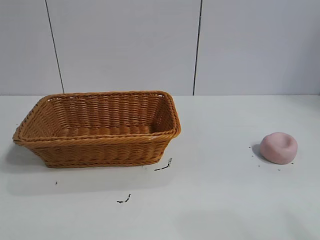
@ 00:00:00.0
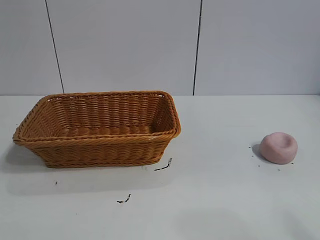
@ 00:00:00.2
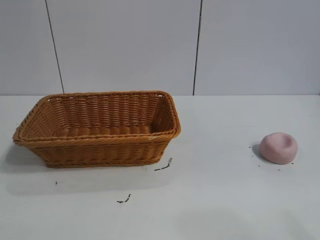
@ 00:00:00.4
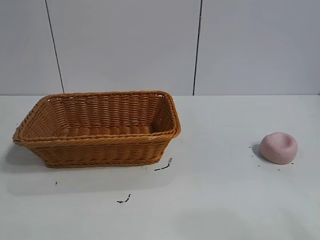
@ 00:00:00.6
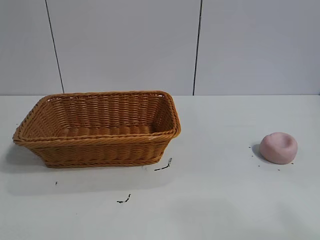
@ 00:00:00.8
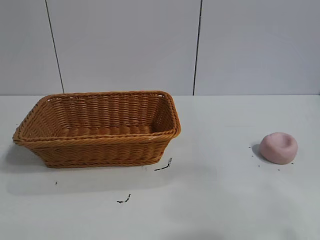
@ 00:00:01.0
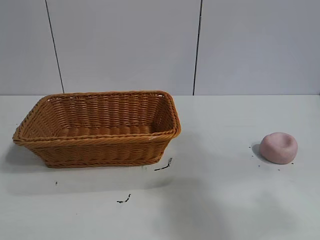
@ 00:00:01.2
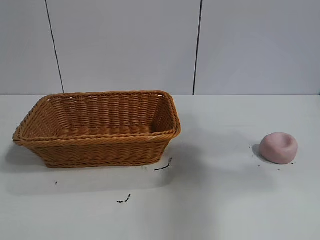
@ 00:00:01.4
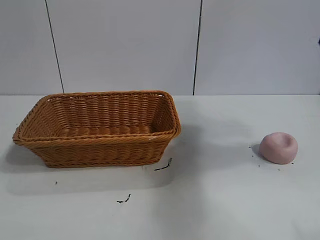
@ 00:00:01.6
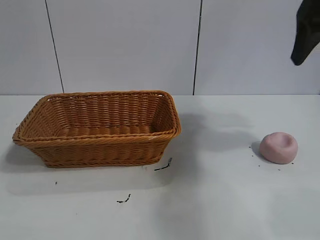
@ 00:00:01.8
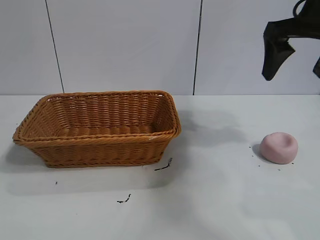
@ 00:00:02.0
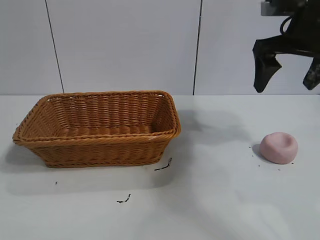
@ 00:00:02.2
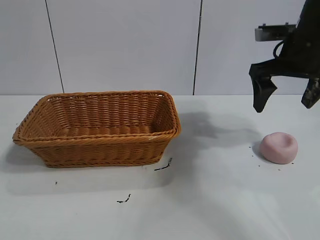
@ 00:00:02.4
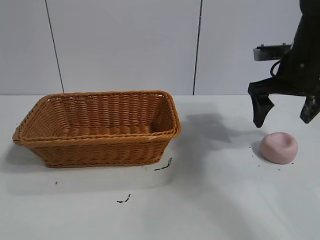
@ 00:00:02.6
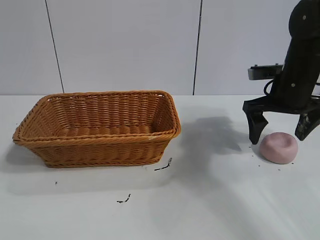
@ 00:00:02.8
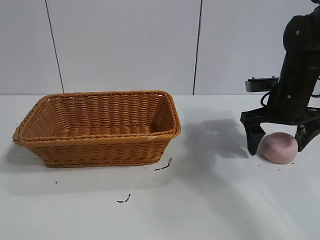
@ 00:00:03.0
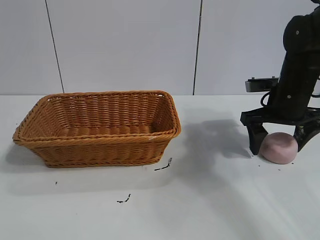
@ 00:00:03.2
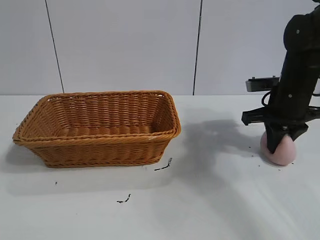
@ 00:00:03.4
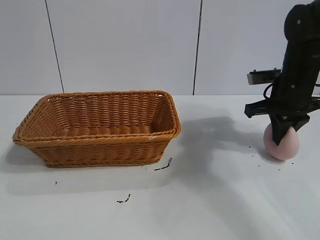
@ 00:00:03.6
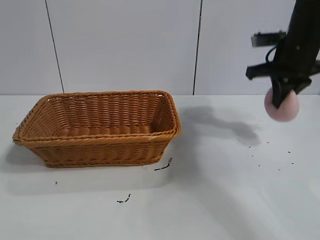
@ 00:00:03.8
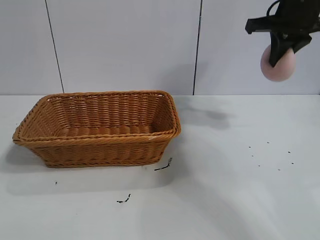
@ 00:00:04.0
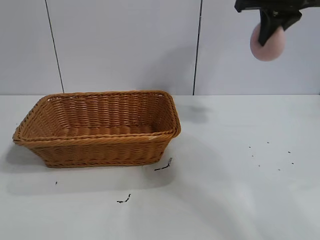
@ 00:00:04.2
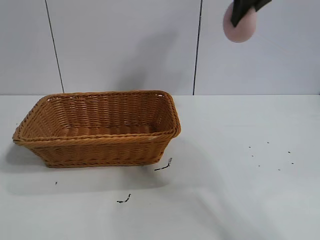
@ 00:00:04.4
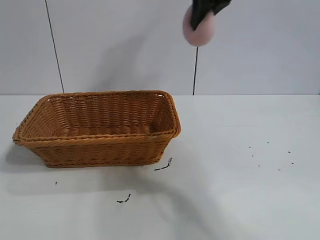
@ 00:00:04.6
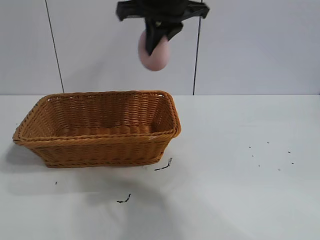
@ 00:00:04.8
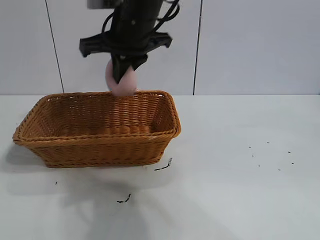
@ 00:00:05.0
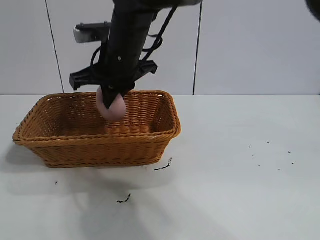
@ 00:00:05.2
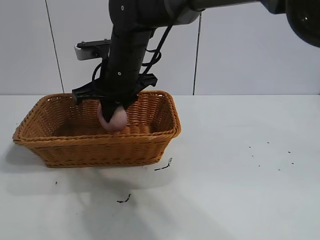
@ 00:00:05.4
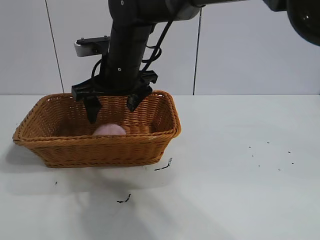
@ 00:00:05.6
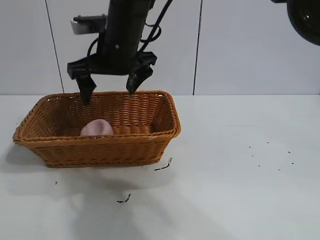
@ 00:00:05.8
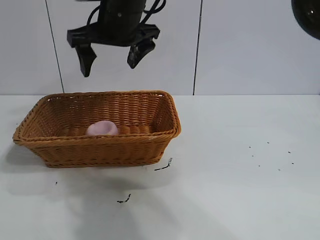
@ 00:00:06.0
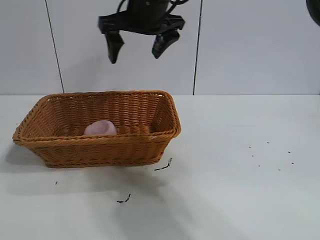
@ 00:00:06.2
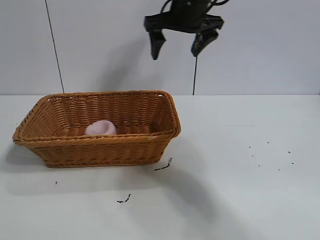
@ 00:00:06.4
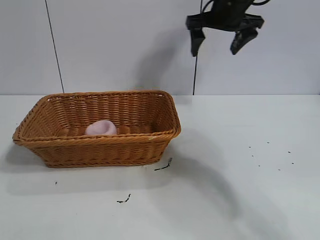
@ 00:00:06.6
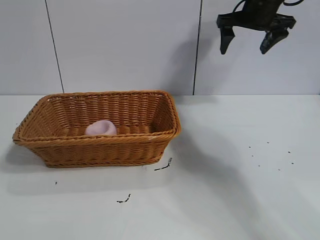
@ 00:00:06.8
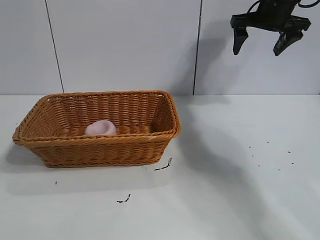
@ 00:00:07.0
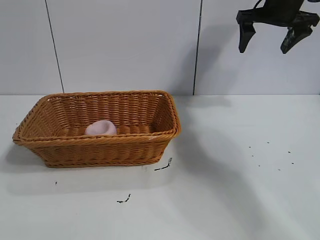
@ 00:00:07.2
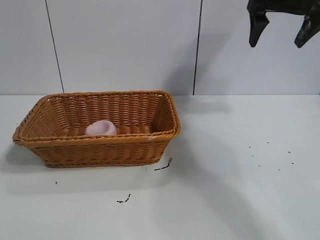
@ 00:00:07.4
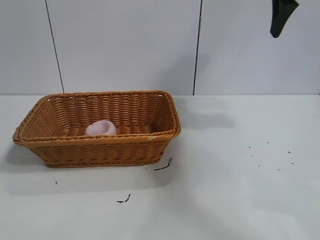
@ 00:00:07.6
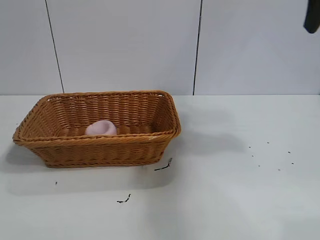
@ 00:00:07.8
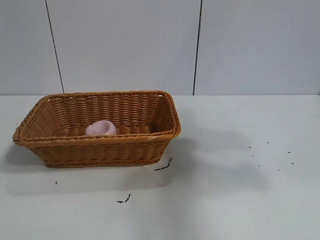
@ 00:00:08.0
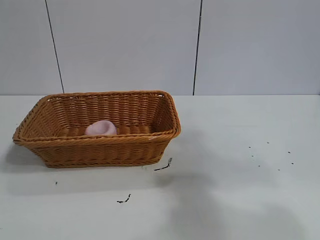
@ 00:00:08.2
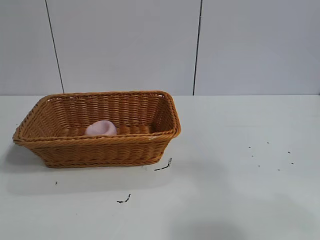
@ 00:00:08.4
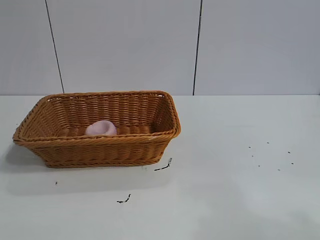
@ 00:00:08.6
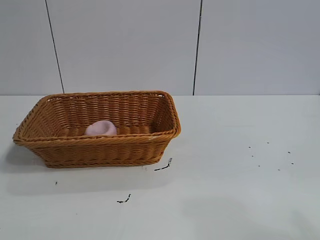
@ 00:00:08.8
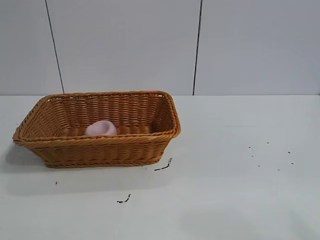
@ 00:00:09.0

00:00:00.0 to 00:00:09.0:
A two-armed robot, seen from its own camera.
Task of the whole recording: pick up the peach and put it into the basket.
Step, 00:00:00.8 to 00:00:03.4: Grasp the peach with right gripper.
Step, 00:00:03.6 to 00:00:05.6: Place the peach in the basket with right gripper.

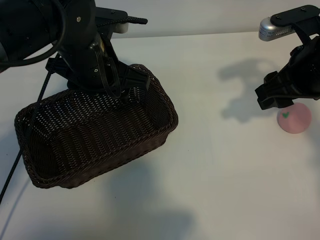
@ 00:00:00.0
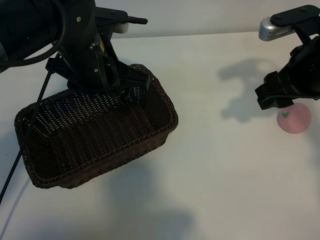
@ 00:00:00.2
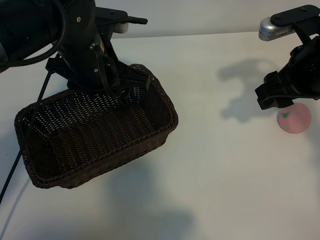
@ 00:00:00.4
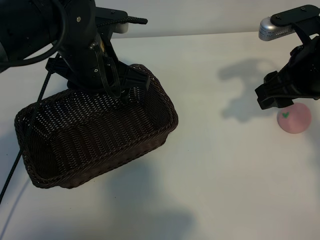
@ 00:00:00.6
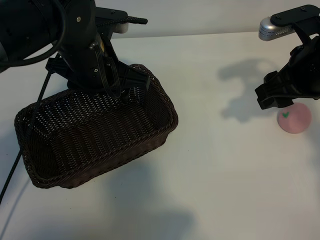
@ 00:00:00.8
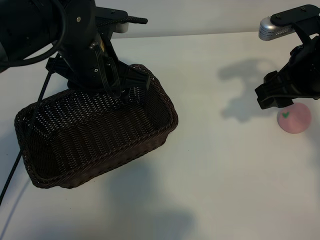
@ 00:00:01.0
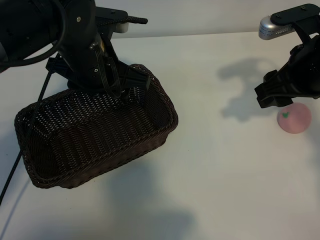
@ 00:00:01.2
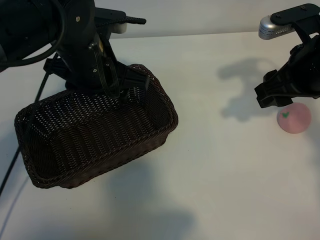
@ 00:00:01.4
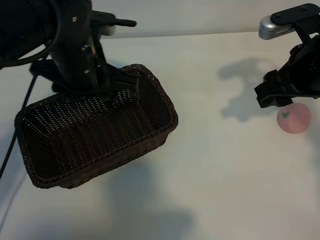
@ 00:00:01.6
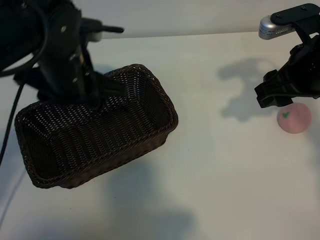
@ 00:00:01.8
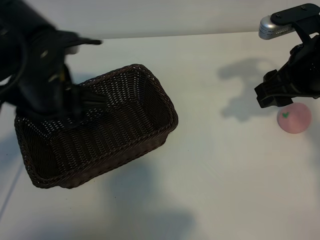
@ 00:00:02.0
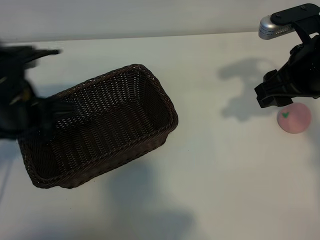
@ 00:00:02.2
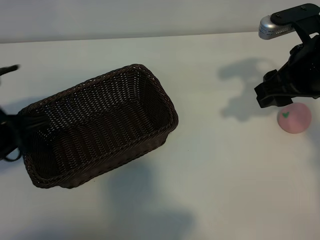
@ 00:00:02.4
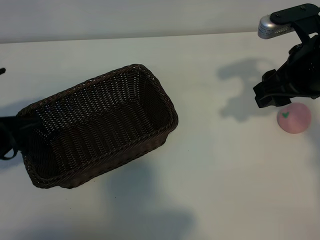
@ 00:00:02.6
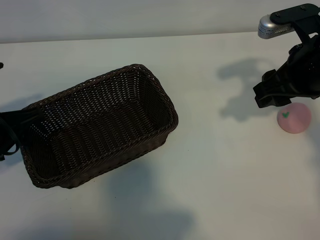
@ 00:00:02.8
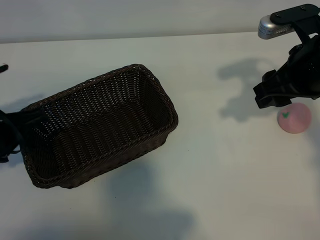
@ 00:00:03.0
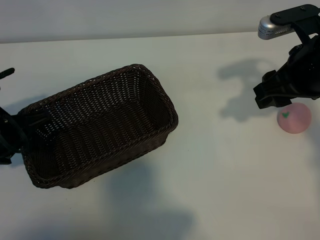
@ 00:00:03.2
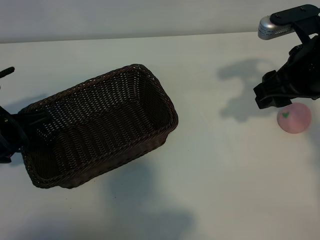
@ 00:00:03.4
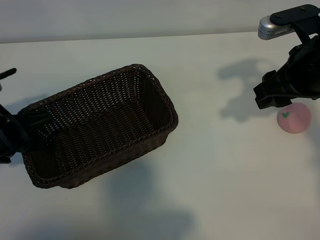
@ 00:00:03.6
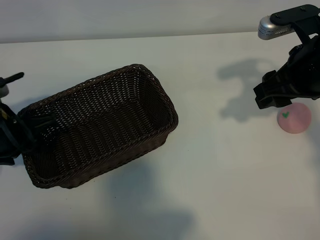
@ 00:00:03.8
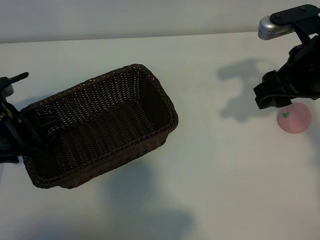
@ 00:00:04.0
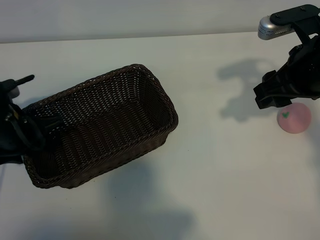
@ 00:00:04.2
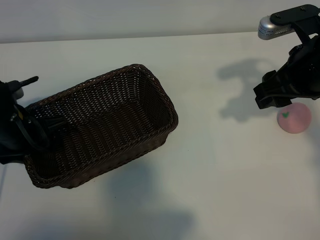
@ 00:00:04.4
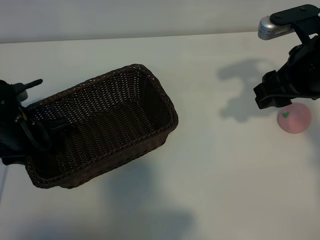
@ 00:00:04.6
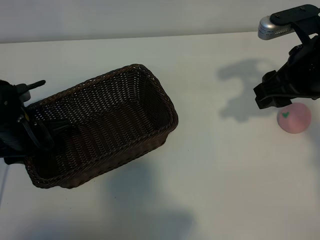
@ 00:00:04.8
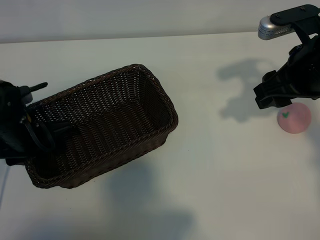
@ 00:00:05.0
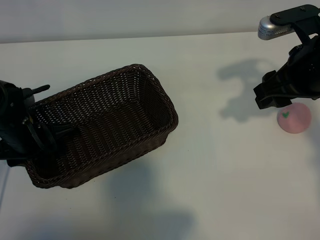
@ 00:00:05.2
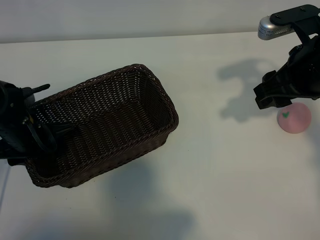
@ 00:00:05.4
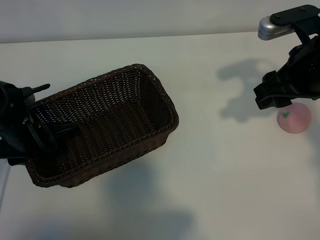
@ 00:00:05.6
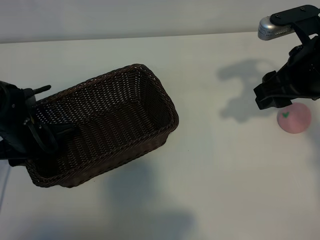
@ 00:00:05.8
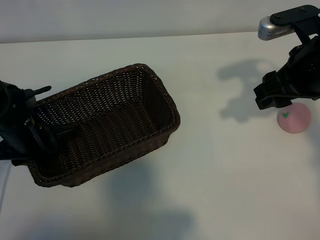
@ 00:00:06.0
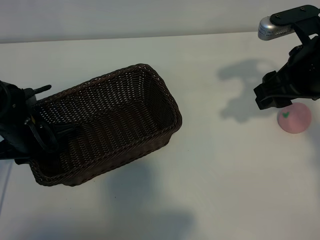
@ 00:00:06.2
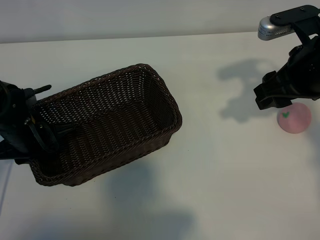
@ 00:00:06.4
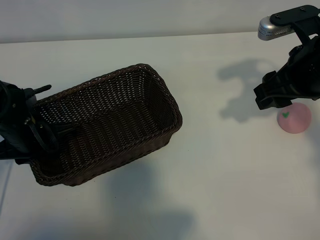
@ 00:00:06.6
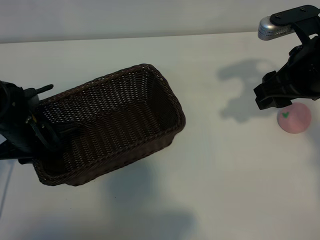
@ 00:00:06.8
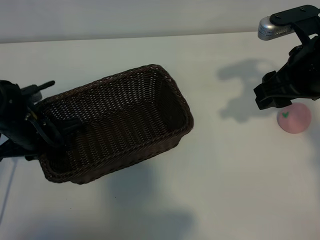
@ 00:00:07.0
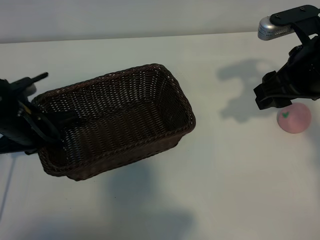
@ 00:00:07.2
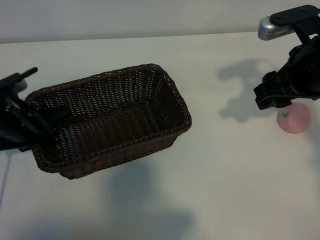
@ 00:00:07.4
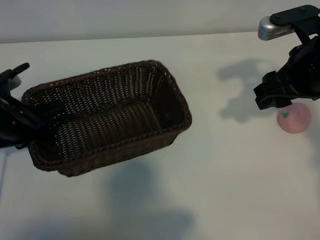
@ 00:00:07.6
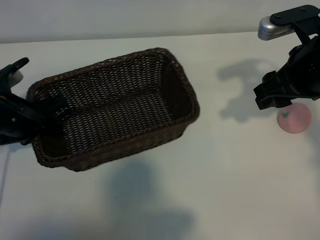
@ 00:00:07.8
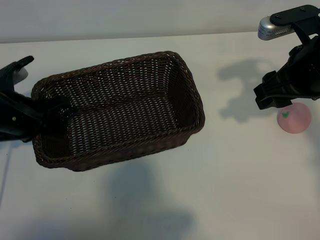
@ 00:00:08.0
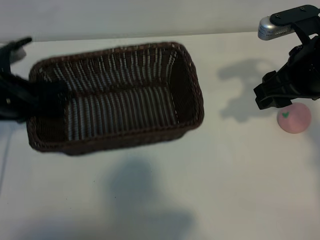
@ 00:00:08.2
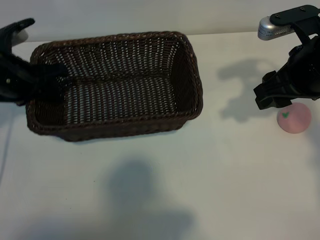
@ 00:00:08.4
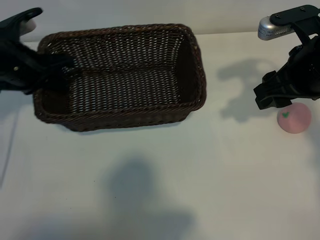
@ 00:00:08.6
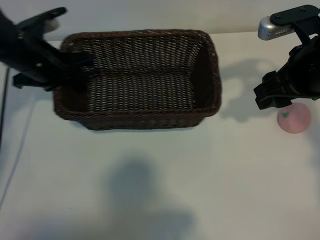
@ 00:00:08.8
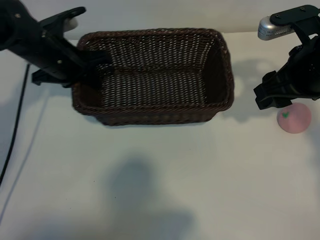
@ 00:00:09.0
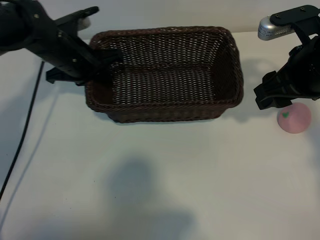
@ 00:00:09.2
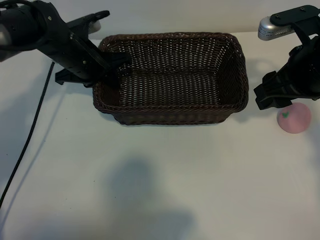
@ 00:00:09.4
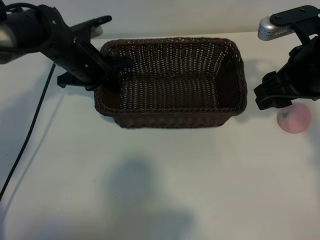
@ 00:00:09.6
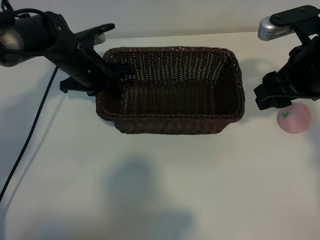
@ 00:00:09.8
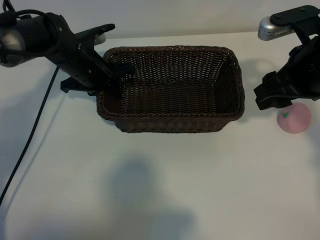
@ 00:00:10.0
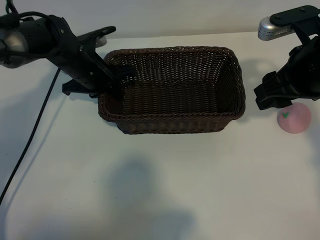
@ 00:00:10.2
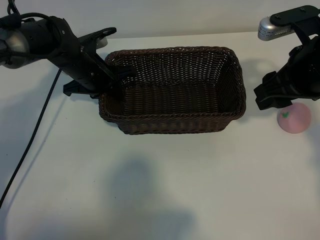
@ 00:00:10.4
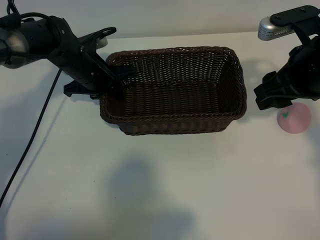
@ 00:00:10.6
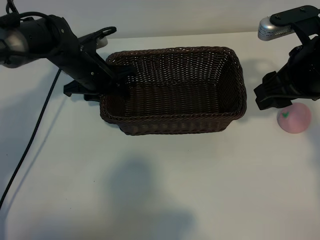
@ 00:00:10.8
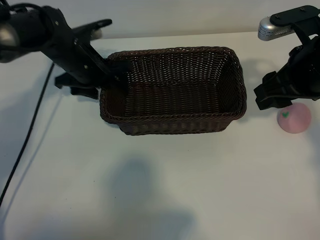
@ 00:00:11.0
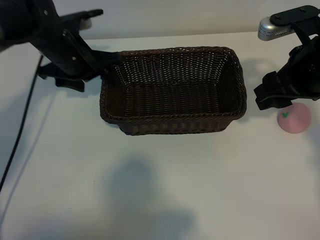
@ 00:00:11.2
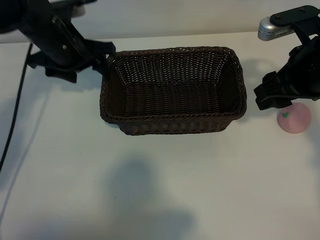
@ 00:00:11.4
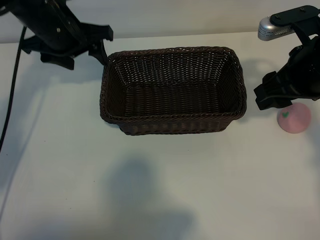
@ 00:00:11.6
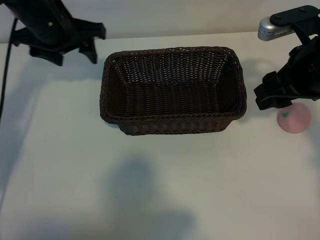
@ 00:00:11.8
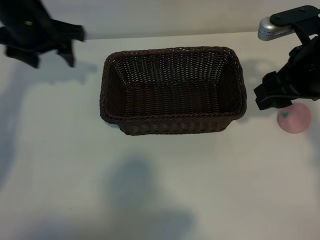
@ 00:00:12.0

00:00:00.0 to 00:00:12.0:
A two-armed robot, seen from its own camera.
Task of the whole recording: pick up the peach and put it into the basket.
Step, 00:00:01.4 to 00:00:06.8: Grasp the basket with left gripper.
Step, 00:00:07.0 to 00:00:11.0: Place the basket in the center of view with left gripper.
